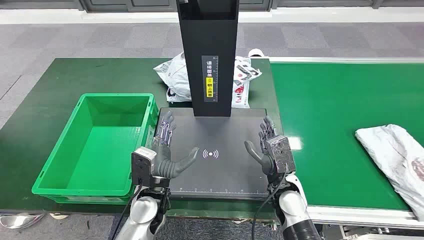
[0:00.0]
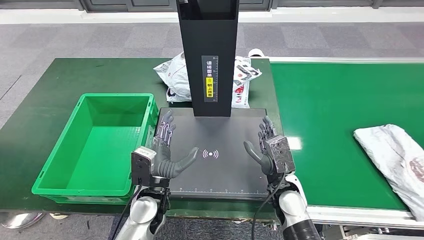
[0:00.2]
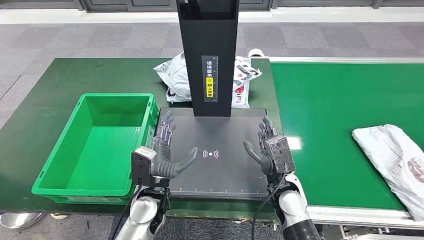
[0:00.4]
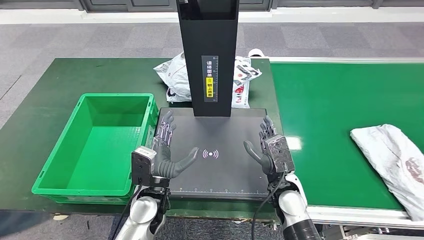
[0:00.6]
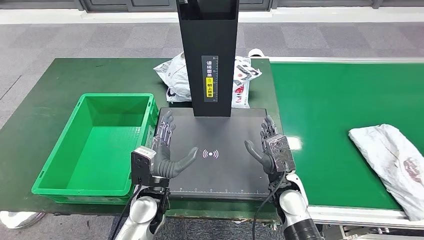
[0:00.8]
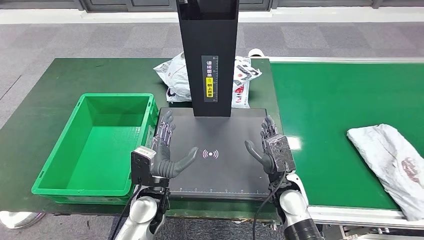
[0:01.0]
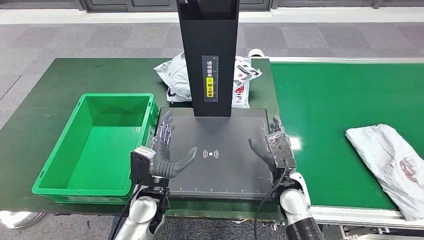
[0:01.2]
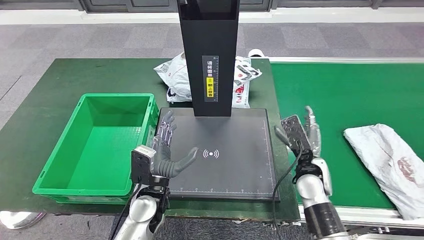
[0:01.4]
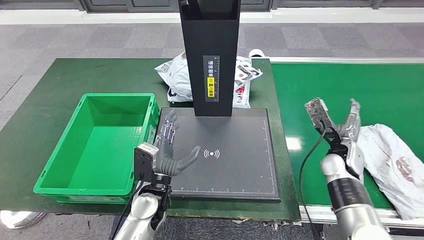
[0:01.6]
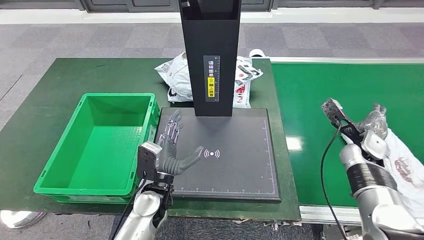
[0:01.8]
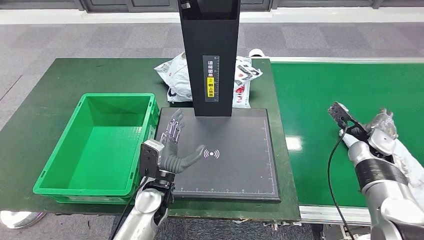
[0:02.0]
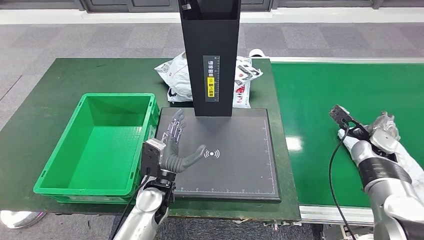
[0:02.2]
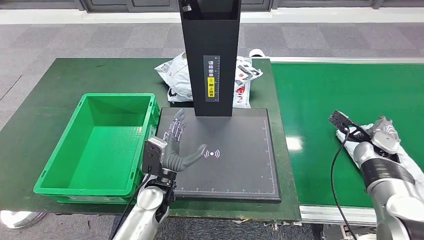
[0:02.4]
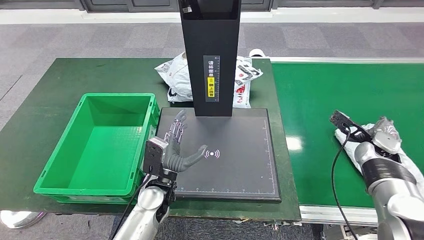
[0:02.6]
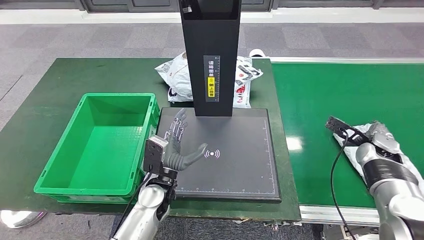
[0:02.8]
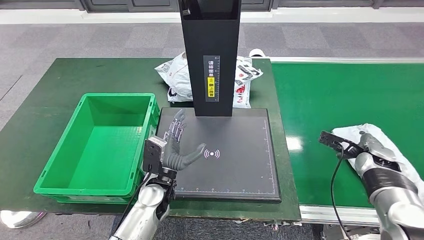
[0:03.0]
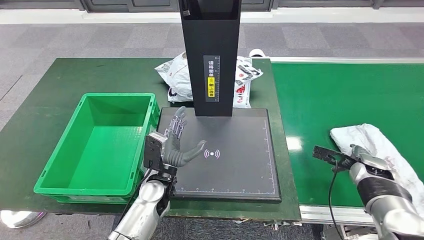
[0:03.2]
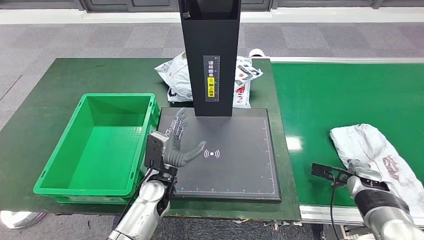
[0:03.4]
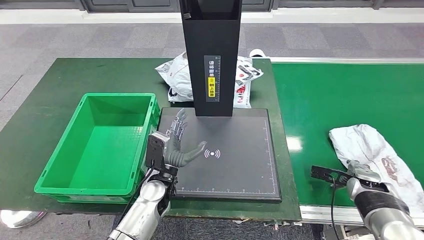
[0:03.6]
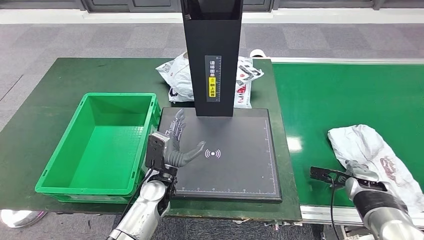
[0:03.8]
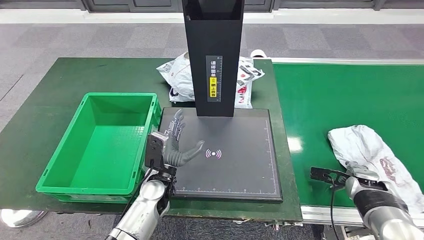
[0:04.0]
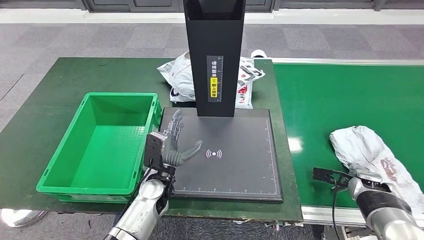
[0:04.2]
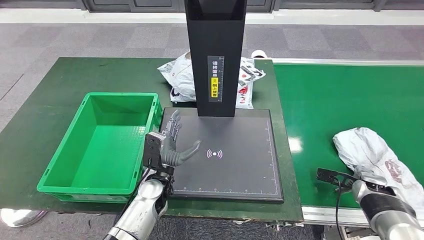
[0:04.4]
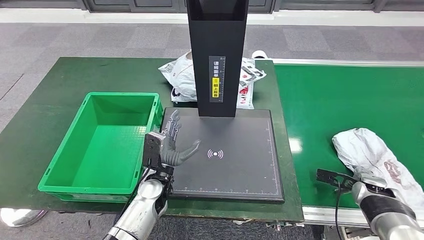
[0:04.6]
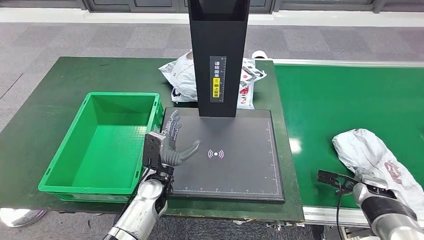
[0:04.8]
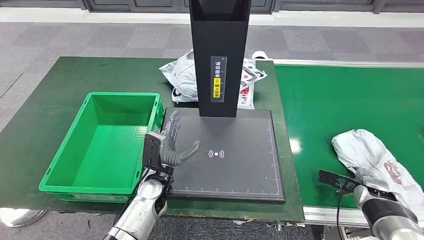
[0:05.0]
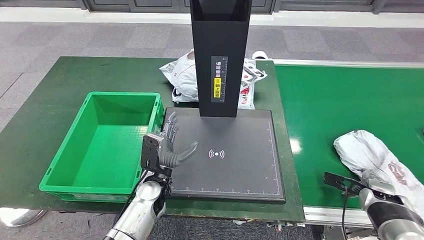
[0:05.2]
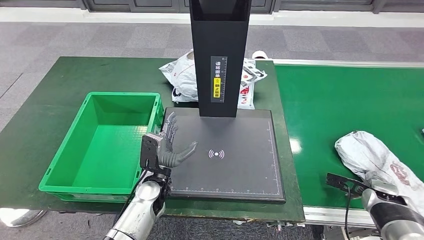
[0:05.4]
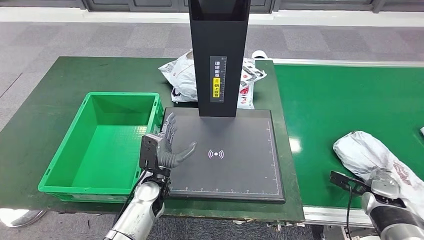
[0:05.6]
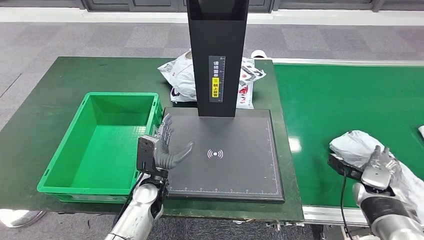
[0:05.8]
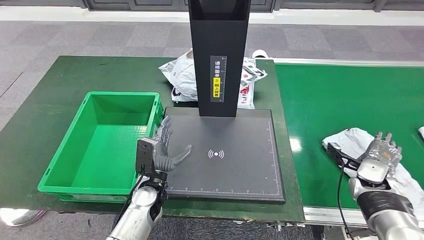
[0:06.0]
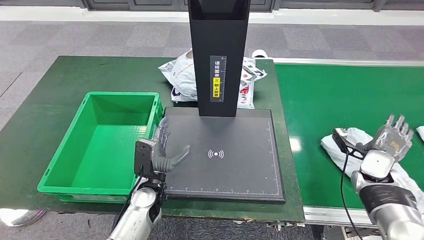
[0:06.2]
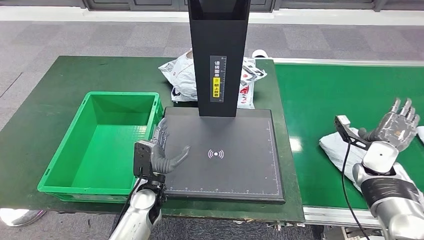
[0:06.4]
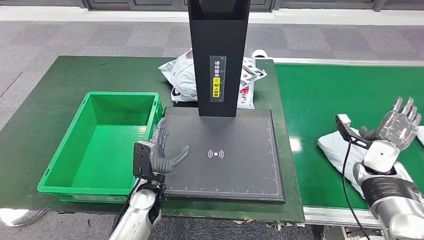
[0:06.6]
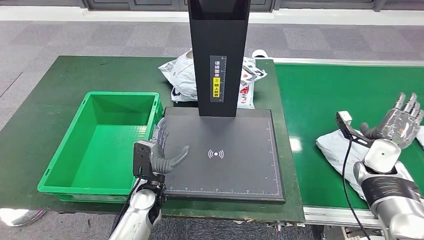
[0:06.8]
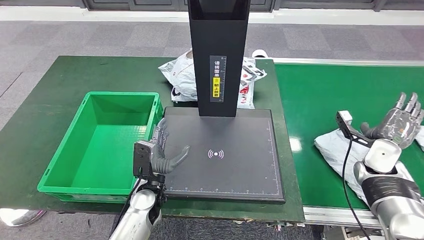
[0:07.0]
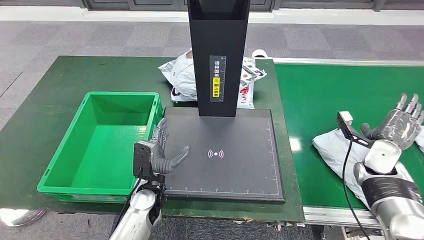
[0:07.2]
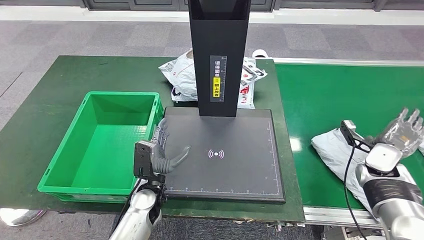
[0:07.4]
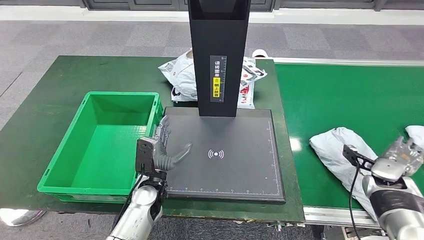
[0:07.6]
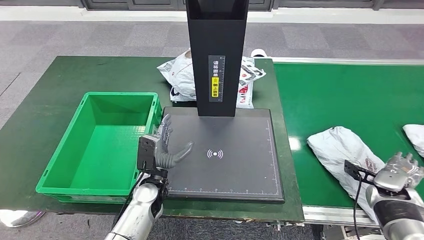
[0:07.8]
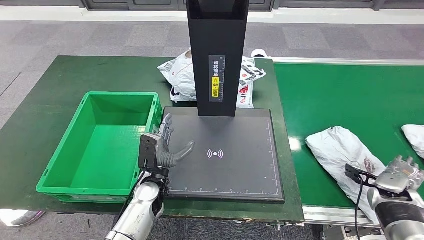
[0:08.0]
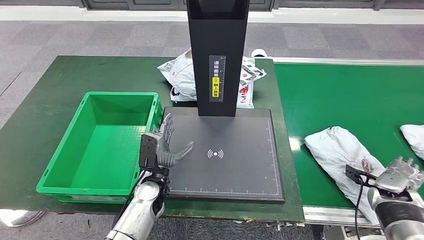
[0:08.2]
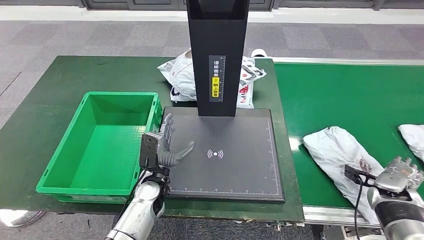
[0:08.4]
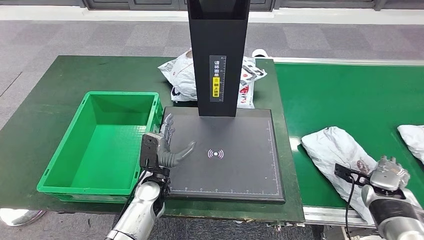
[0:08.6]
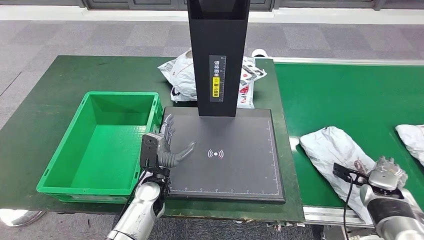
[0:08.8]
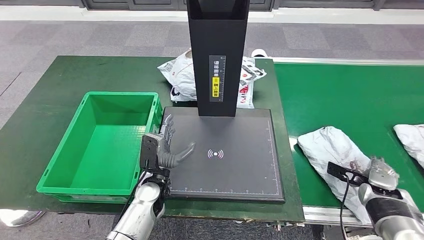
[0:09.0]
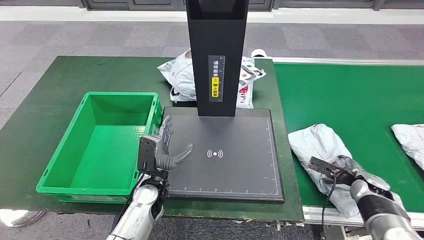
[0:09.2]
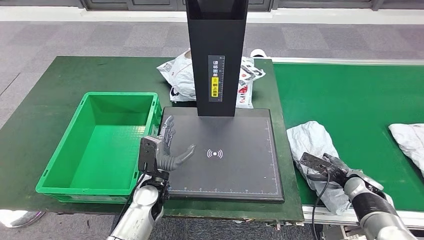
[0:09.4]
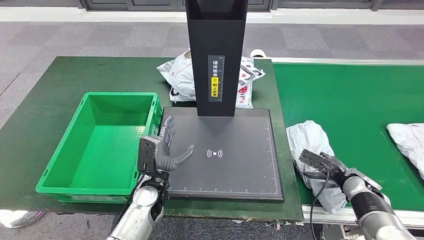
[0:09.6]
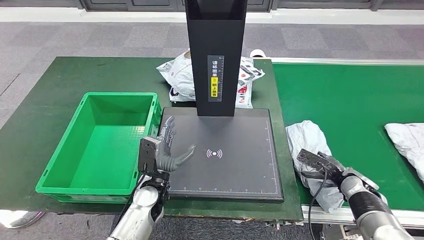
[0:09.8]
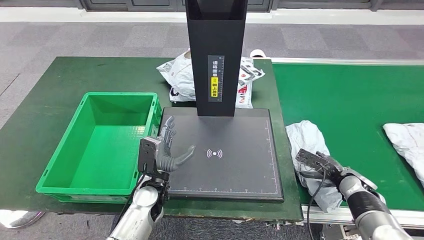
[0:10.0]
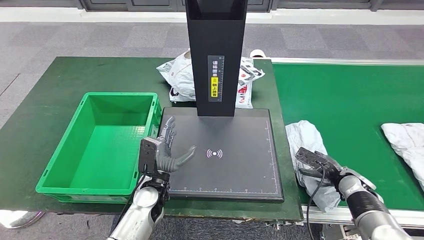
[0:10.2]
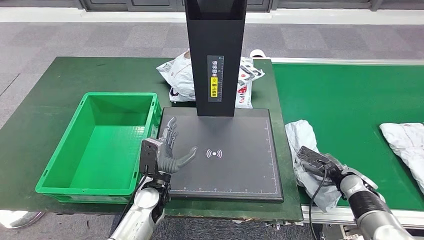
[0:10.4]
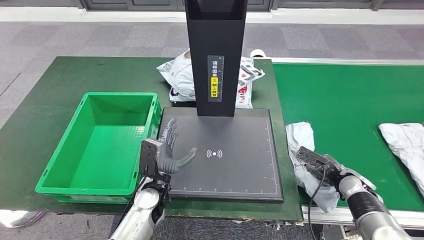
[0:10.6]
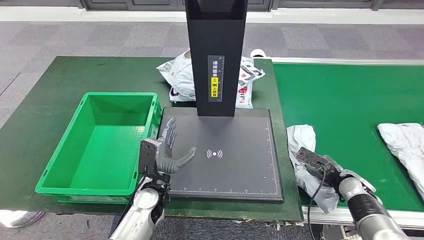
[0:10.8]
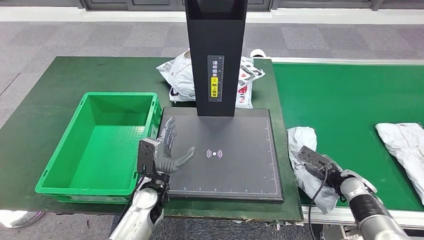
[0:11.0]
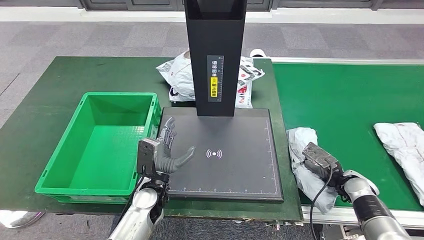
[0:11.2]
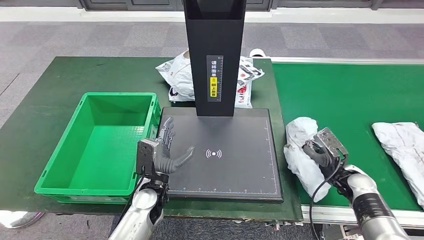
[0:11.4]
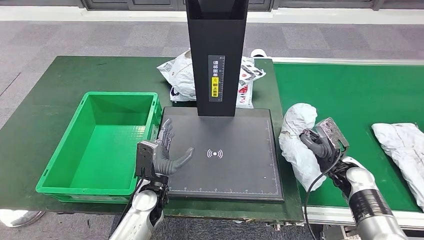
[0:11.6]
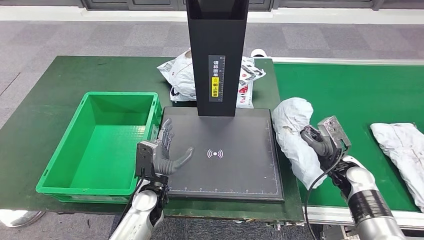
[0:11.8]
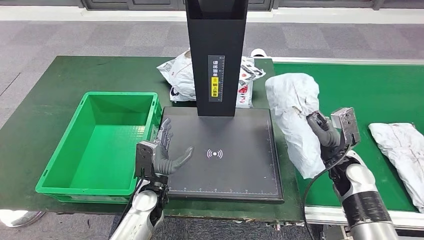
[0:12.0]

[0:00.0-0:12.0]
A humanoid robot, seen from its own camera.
0:01.6 to 0:03.0: The right hand moves to the right, about 10 cm.
0:03.0 to 0:04.4: The right hand travels downward and backward by roughly 10 cm.
0:09.0 to 0:10.4: The right hand is displaced to the left by roughly 5 cm.
0:10.4 to 0:12.0: The right hand goes approximately 5 cm upward.

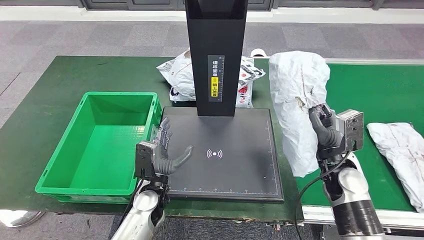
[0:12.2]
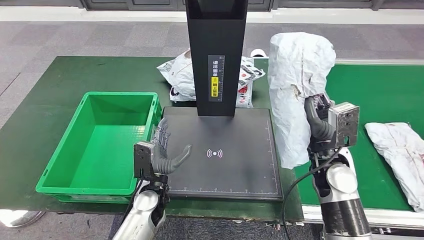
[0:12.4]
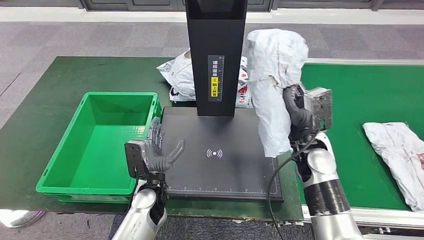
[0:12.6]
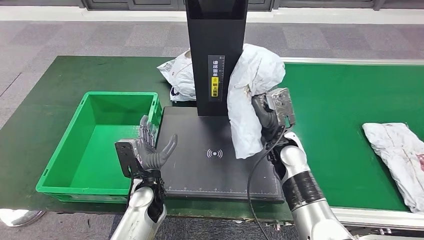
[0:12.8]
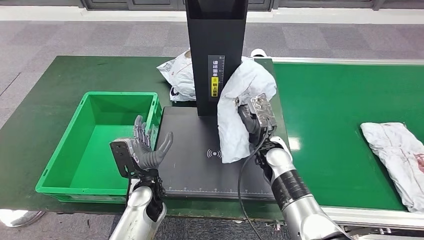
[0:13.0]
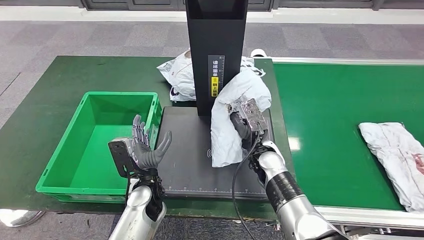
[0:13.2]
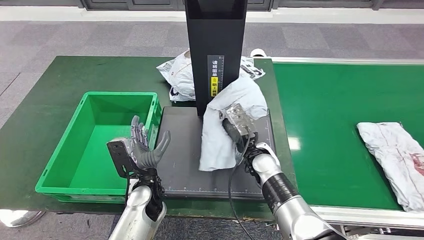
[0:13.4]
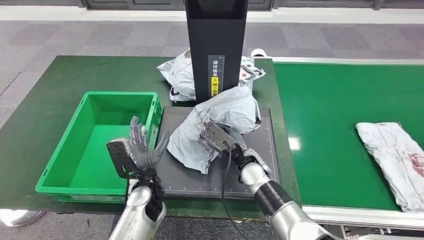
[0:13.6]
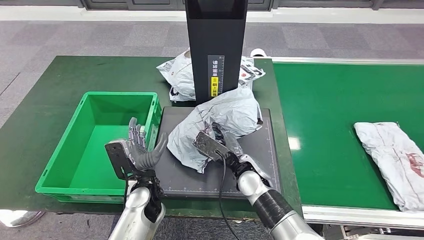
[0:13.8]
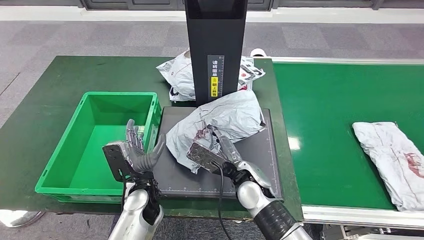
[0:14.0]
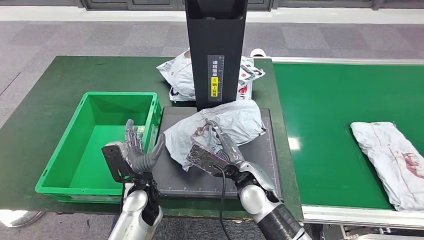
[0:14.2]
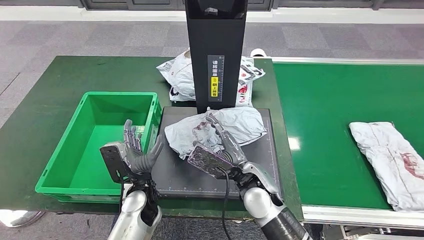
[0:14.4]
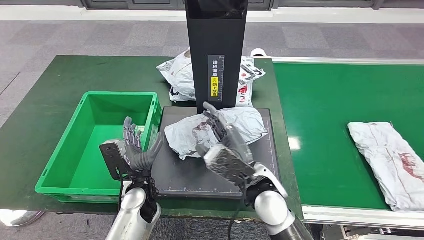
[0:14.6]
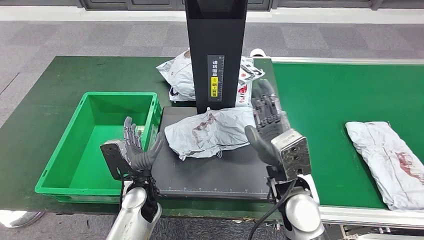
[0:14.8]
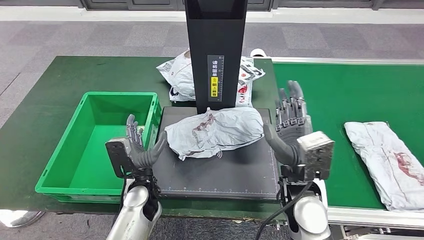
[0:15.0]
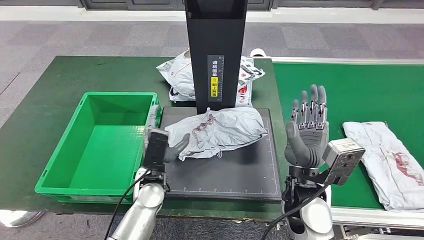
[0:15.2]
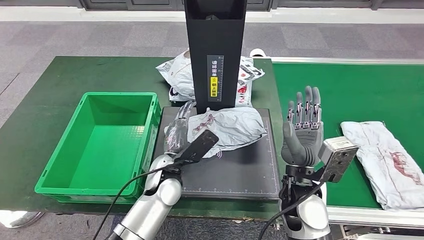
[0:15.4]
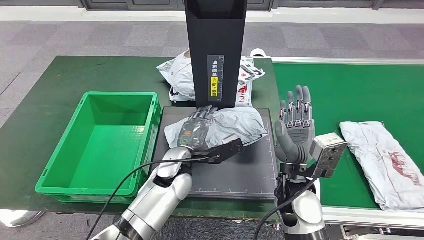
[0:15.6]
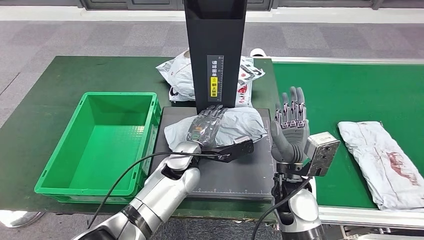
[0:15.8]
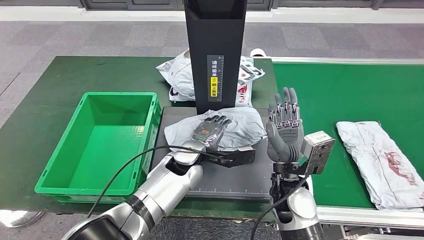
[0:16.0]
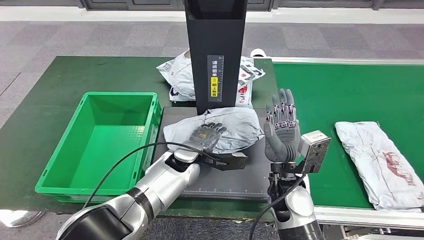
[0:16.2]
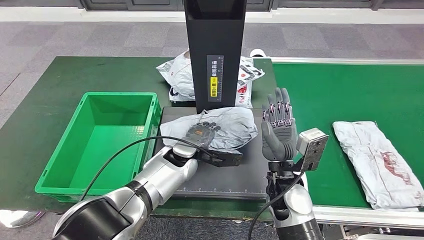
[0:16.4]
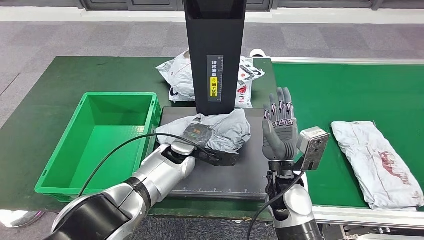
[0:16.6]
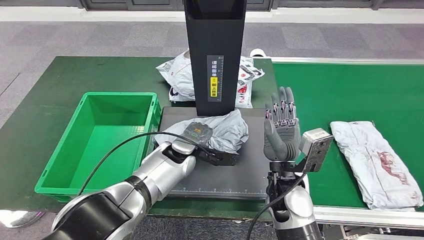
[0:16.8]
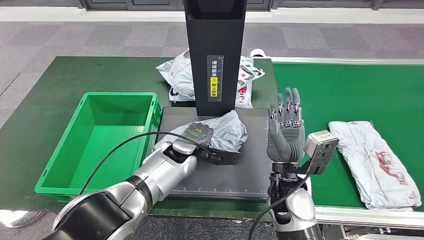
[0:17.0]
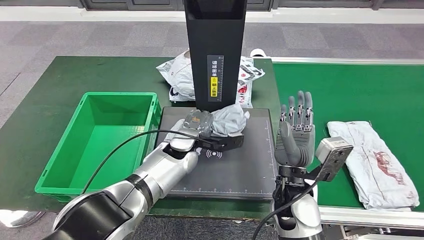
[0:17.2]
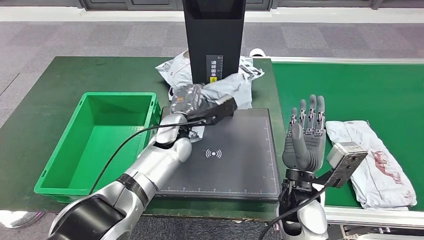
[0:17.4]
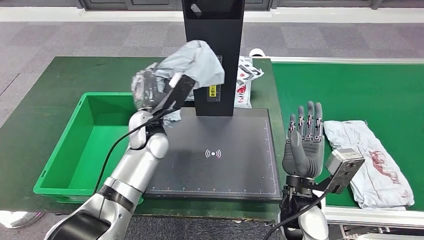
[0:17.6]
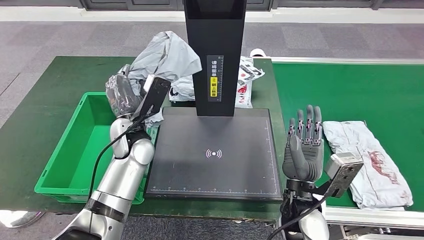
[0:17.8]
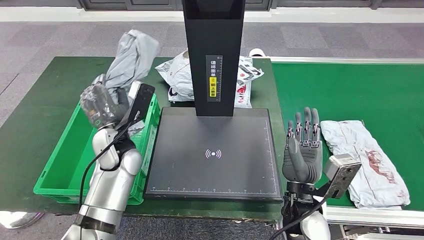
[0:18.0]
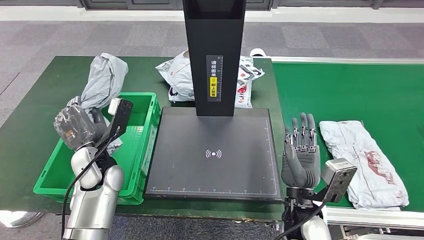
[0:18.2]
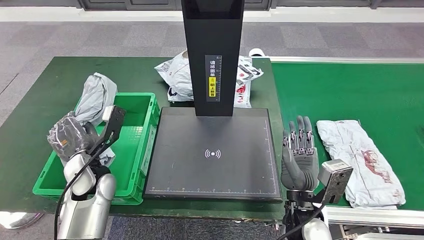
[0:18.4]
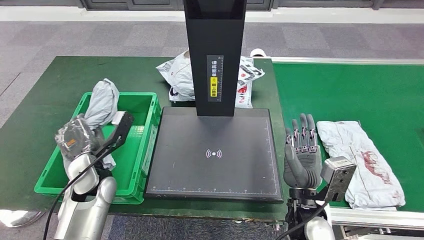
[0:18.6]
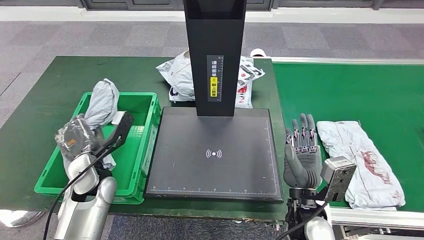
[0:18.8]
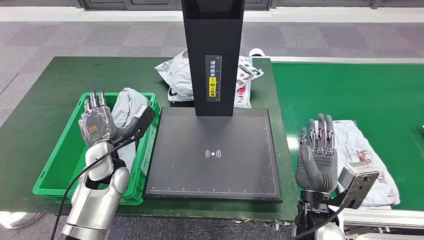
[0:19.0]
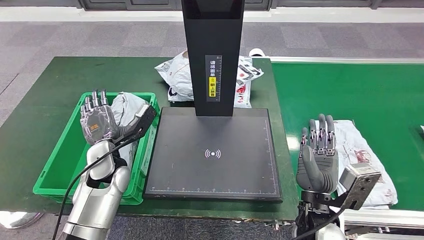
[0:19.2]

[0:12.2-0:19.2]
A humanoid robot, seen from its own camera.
Step, 0:12.8 to 0:15.4: Place the parcel onto the inbound machine.
Step, 0:15.6 to 0:18.2: Pick up the parcel from the inbound machine.
0:13.6 to 0:15.0: The right hand goes some 15 cm upward, to the right and backward.
